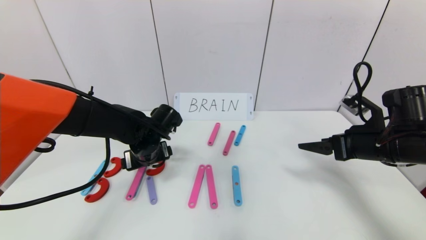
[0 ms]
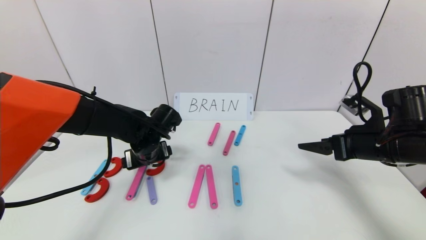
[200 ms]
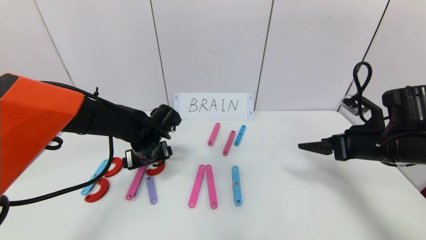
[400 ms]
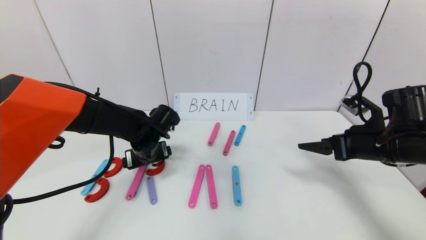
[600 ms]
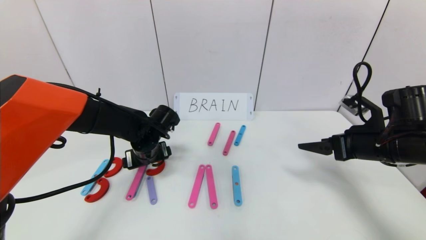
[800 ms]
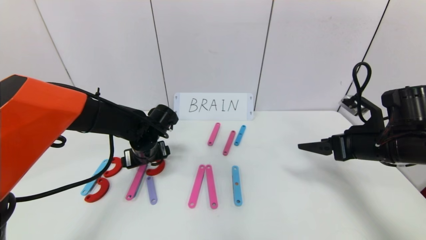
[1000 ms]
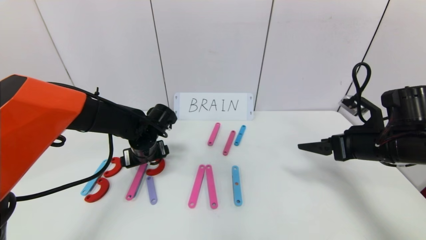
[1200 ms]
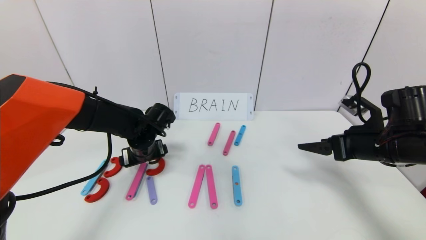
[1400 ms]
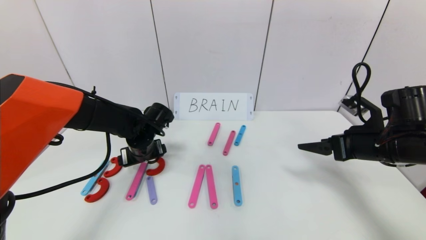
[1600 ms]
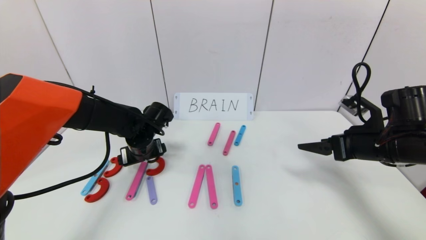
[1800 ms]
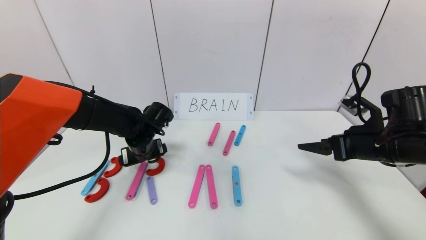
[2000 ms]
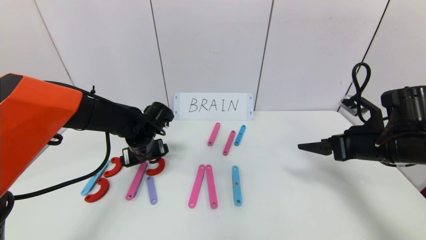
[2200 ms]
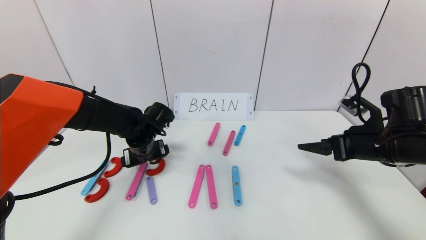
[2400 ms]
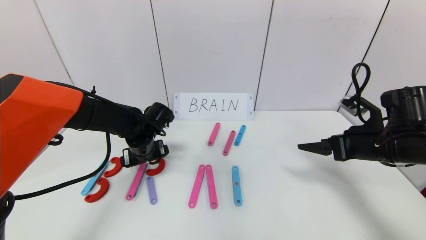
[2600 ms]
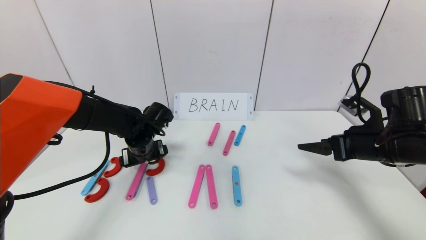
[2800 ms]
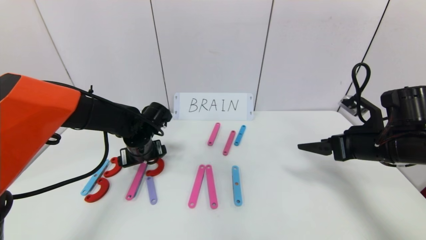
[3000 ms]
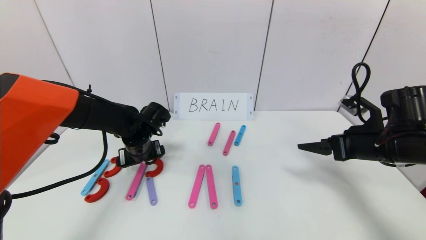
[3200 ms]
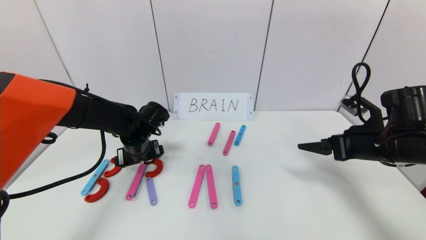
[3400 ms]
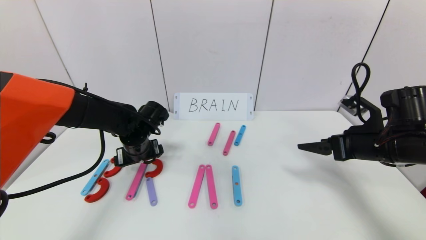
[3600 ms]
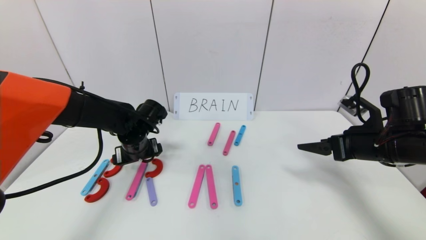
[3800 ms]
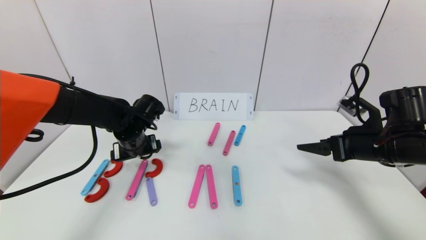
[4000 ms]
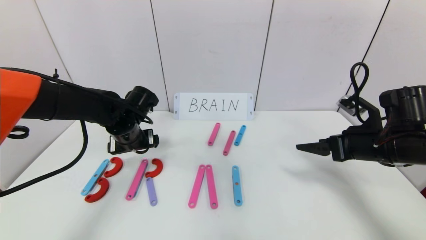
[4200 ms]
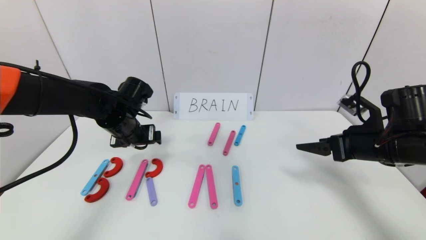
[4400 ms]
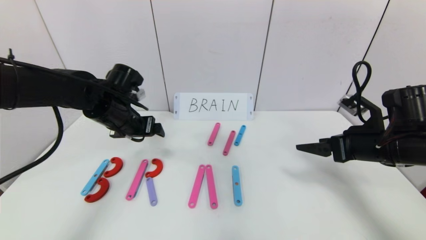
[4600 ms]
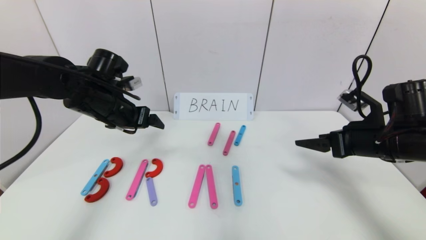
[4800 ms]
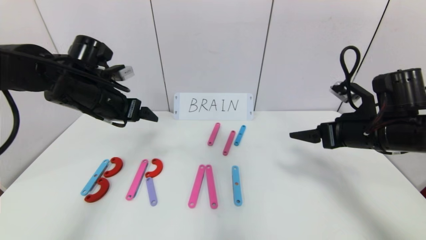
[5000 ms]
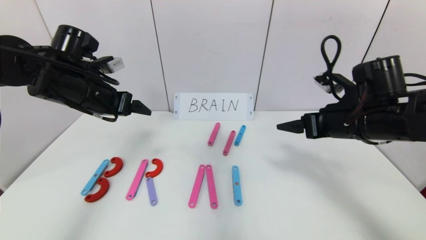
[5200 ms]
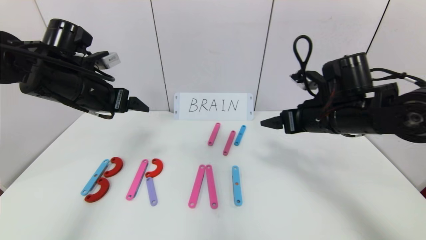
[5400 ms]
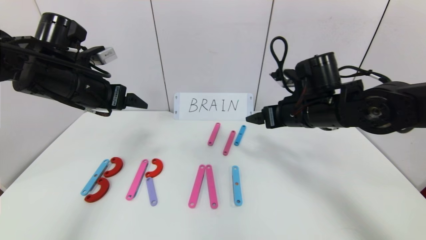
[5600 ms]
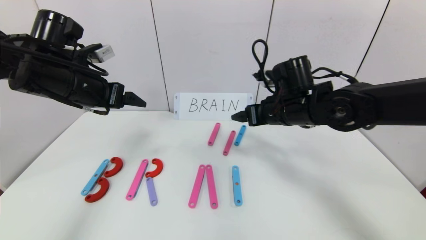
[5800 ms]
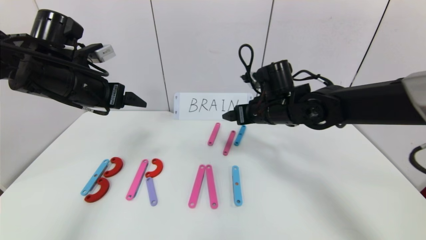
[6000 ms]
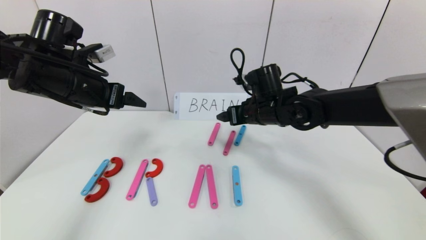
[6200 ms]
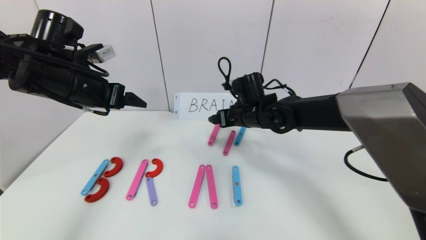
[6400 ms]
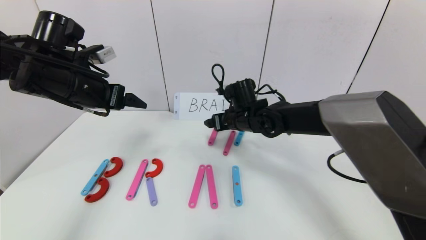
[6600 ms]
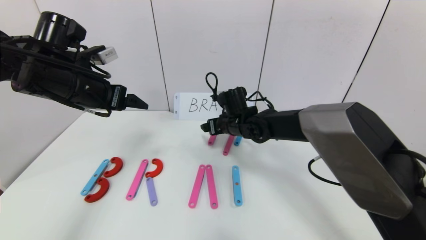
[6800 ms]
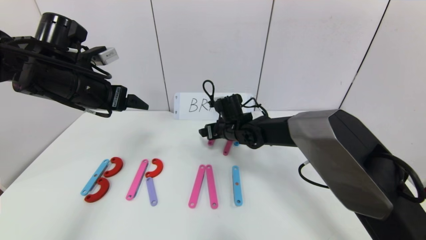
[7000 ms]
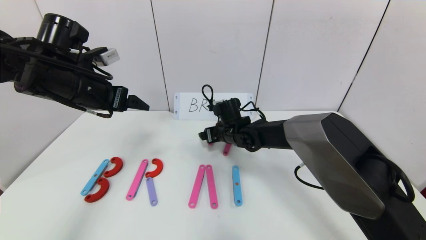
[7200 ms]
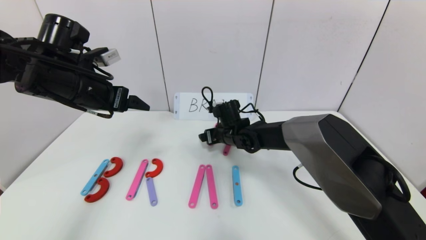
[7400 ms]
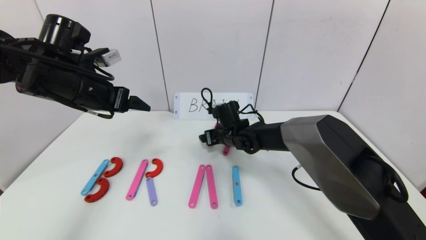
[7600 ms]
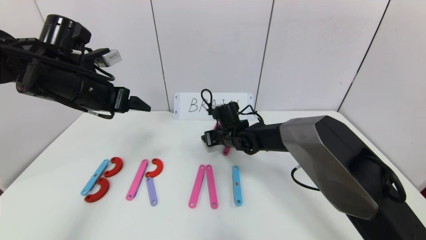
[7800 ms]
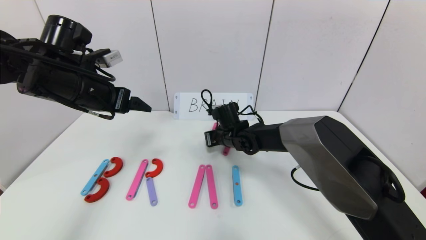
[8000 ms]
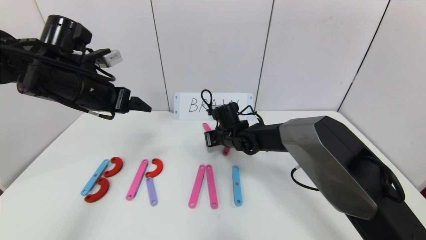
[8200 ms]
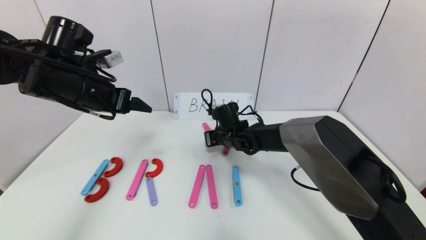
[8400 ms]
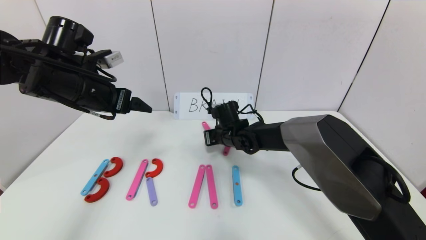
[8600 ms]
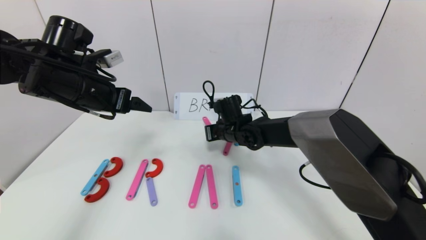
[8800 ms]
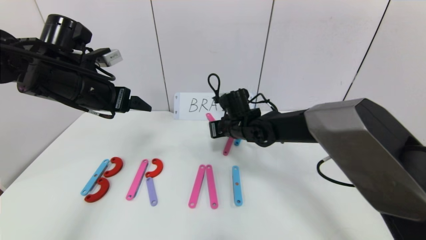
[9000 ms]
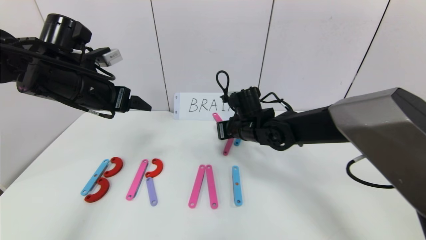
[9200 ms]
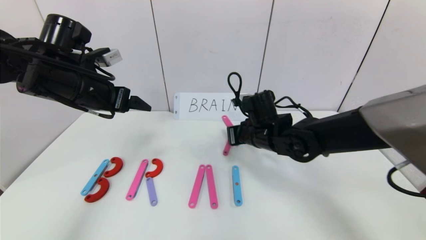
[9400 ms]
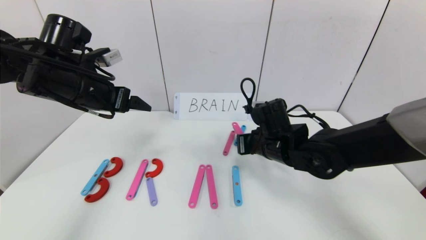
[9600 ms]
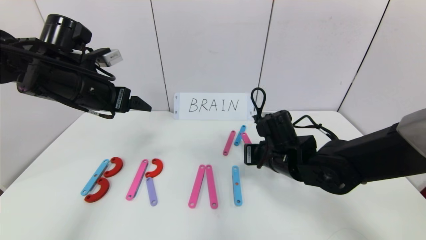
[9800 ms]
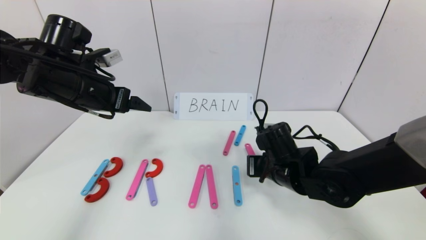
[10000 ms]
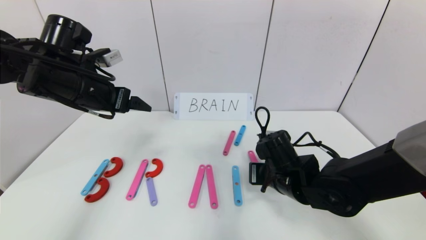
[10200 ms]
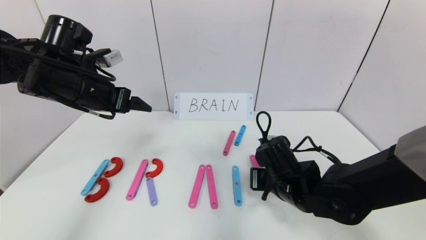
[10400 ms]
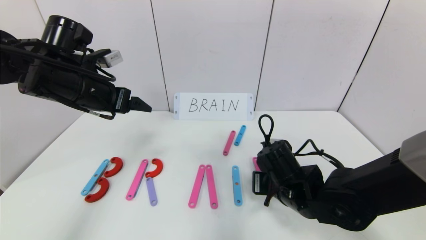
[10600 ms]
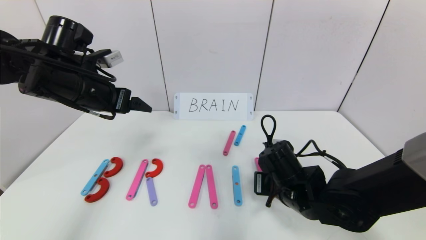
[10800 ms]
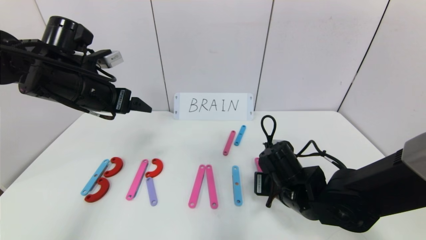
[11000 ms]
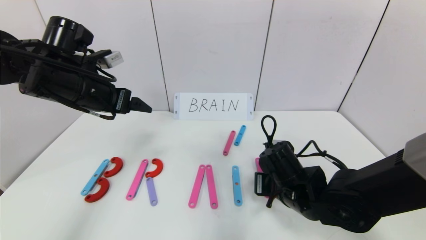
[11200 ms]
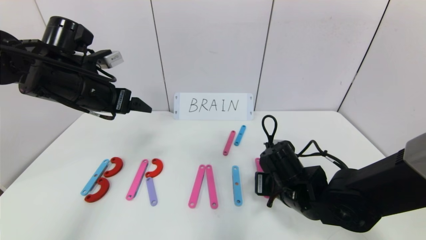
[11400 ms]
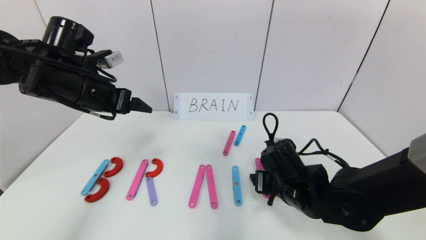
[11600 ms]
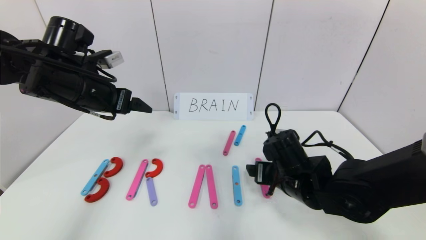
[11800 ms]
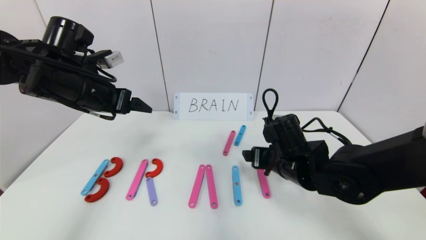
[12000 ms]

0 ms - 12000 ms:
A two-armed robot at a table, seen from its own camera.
Task of the whole recording: rearrange the word baai as brain.
Step, 0 ms - 3600 ms: Place the character R between first character B and third character A.
0 ms - 1600 ms: The grippers make only small movements.
1600 ms - 3000 ms: Both grippers stay put.
3000 ms - 4400 ms: The left gripper moves upward, about 5 cm.
4400 ms - 6000 ms: The left gripper shifts about 10 cm upward and to the left, while the right gripper shifts some 20 cm to the left and forward.
6000 ms - 7600 ms: The right gripper is displaced downward, to the left and forward by some 15 cm.
7600 ms - 9000 ms: The right gripper moves upward, some 5 cm, and closes up.
9000 ms - 10400 ms: The right gripper shifts approximately 15 cm backward and to the right.
10400 ms - 12000 ms: The right gripper changes place by about 5 cm, and opens its fingers.

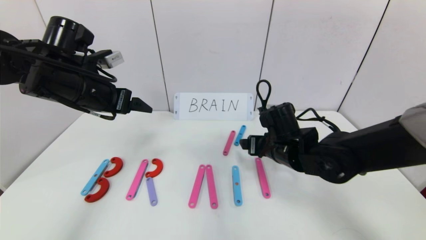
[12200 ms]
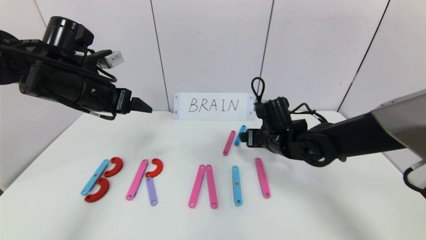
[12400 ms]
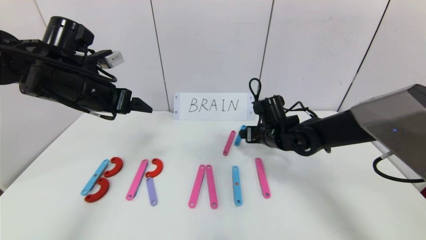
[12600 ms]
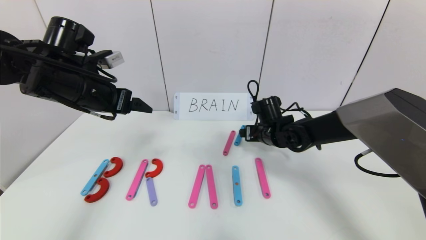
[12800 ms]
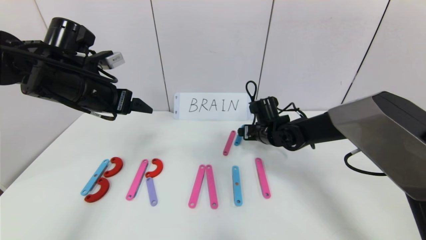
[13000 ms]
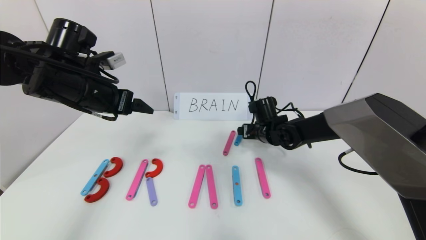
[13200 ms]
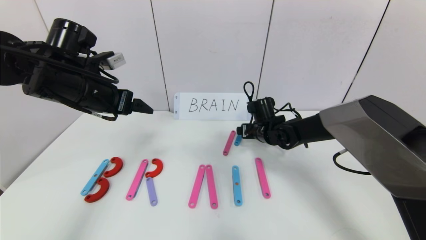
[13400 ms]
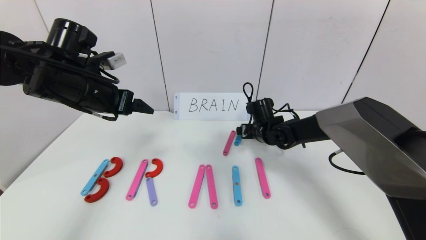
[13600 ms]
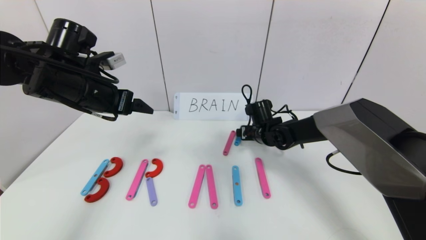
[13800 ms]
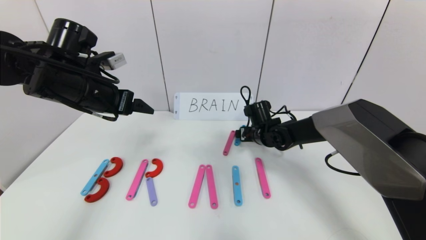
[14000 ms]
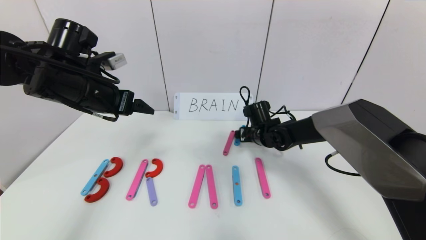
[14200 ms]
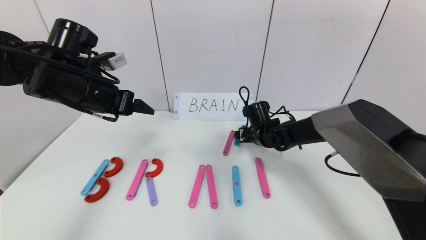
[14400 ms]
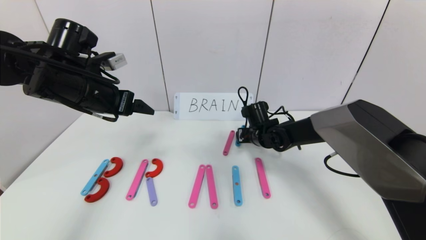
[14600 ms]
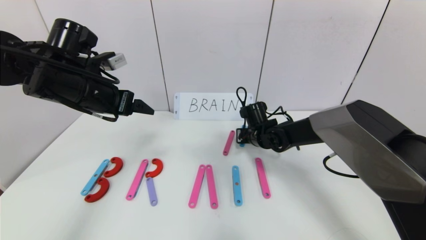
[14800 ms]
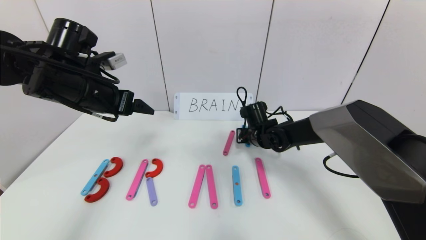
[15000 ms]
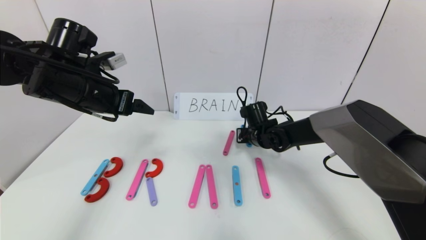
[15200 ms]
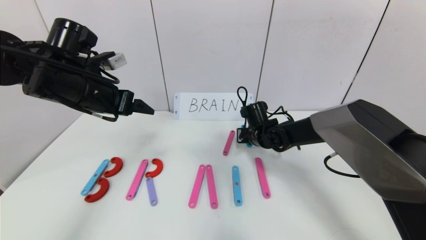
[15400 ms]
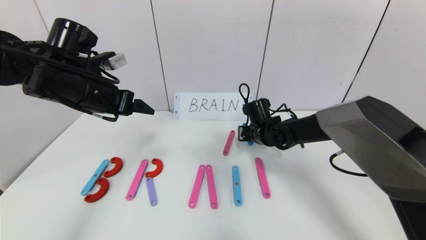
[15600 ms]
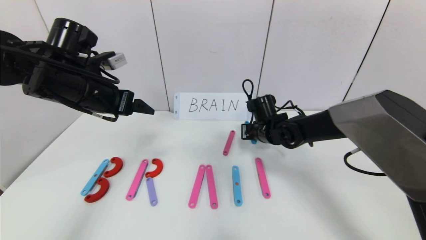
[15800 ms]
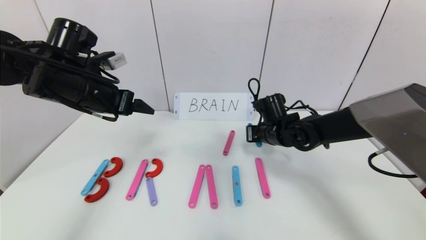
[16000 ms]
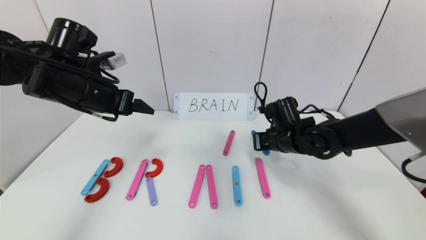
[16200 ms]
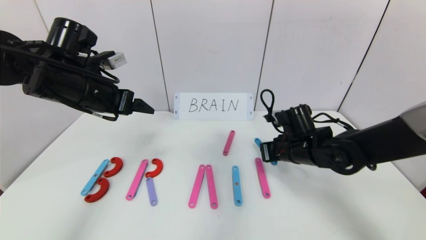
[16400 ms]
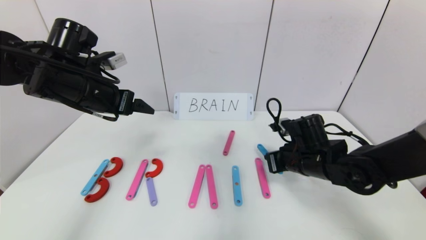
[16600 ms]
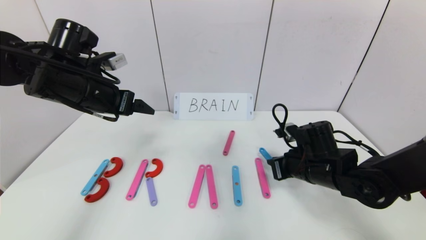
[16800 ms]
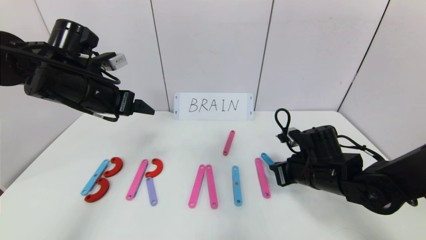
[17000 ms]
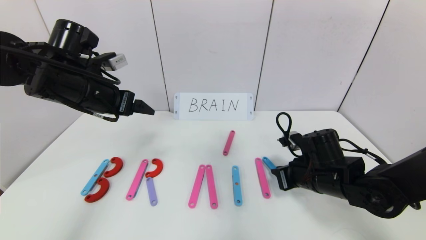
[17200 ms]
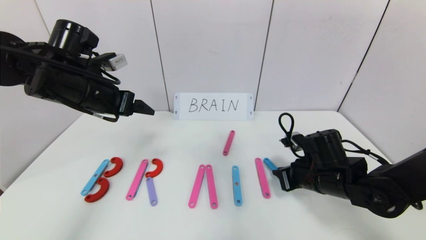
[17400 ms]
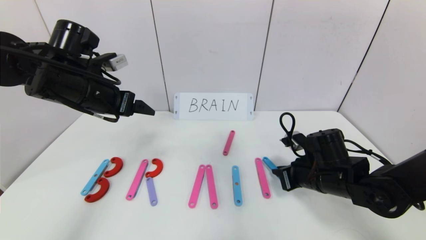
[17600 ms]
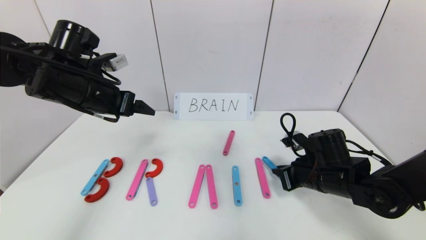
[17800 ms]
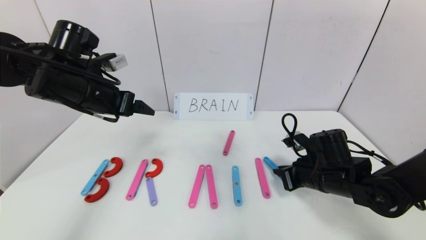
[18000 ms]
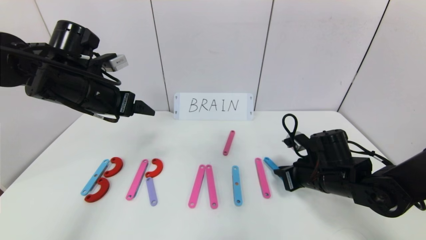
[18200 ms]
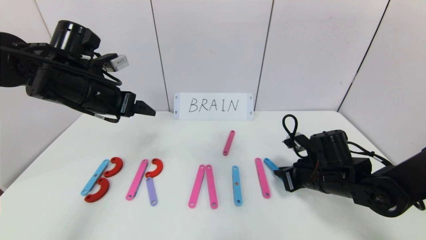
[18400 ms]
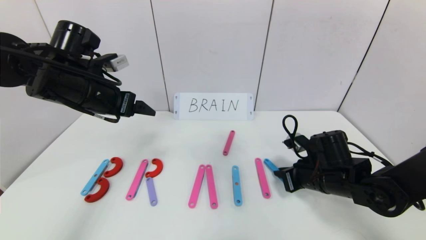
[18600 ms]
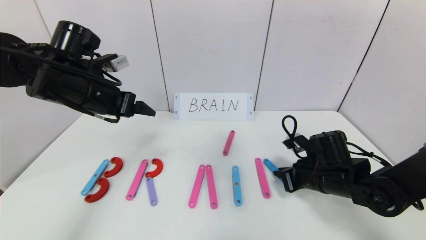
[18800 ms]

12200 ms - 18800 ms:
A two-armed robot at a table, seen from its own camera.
Task of the whole recording: rearrange the word baai as brain.
12200 ms - 13800 ms: The right gripper is displaced forward and downward by roughly 15 cm.
13800 ms - 15400 ms: The right gripper closes its fingers.
15400 ms - 17200 ms: The right gripper is displaced backward and to the right by approximately 20 cm.
17200 ms - 18800 ms: The grippers move only a little.
